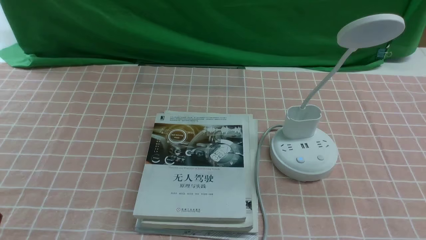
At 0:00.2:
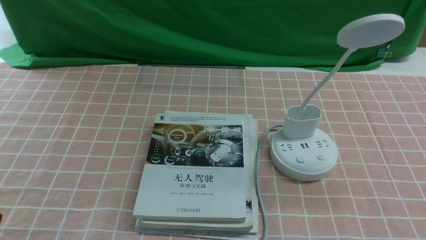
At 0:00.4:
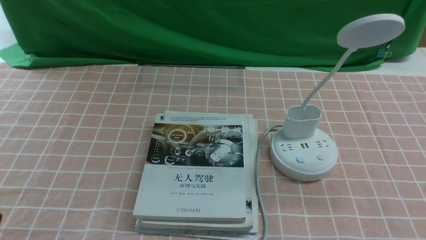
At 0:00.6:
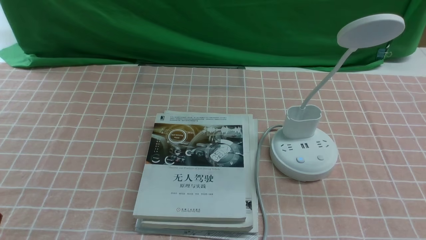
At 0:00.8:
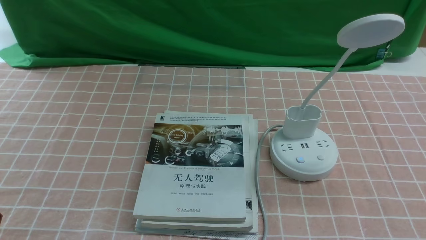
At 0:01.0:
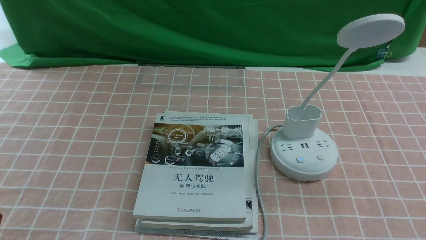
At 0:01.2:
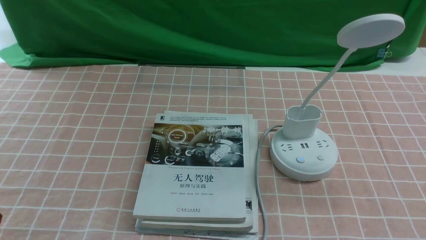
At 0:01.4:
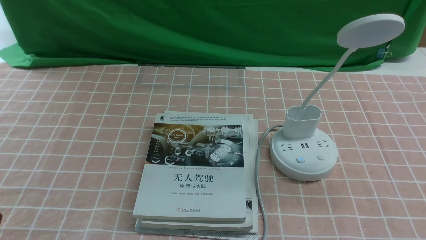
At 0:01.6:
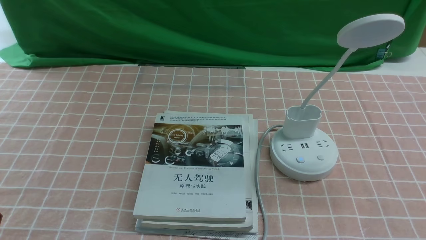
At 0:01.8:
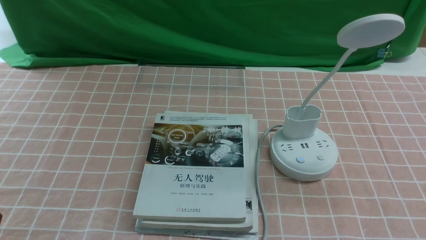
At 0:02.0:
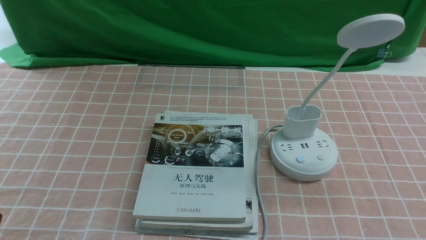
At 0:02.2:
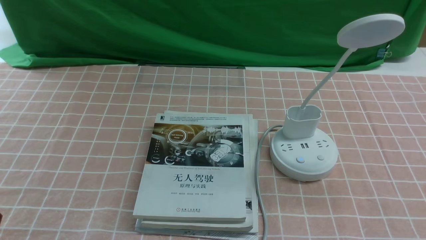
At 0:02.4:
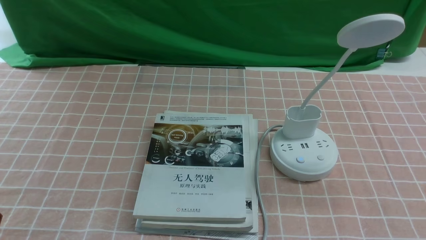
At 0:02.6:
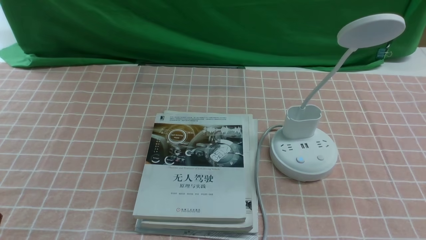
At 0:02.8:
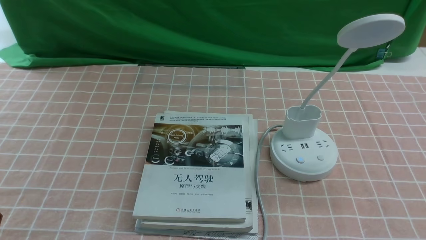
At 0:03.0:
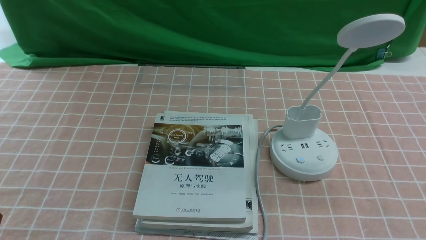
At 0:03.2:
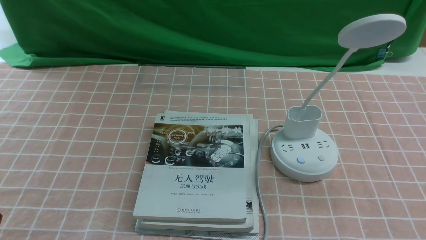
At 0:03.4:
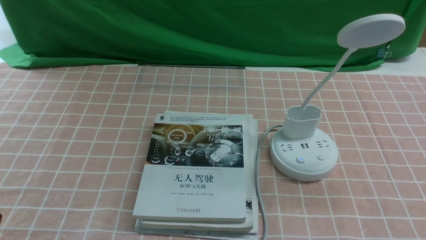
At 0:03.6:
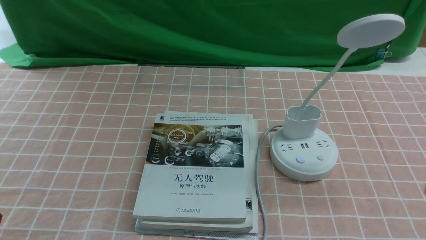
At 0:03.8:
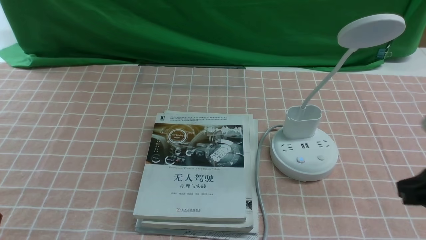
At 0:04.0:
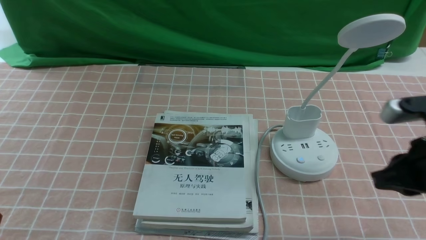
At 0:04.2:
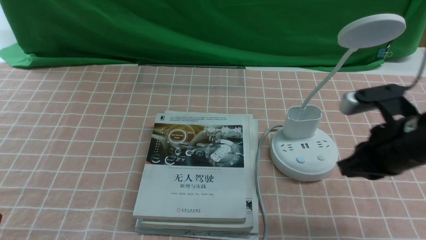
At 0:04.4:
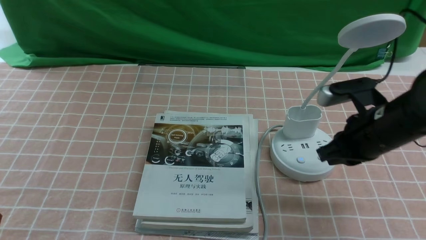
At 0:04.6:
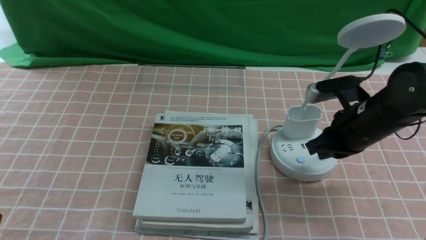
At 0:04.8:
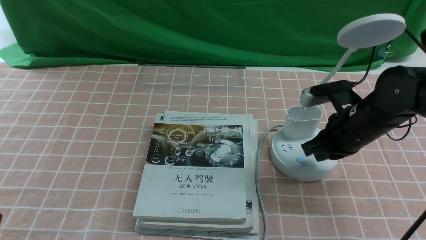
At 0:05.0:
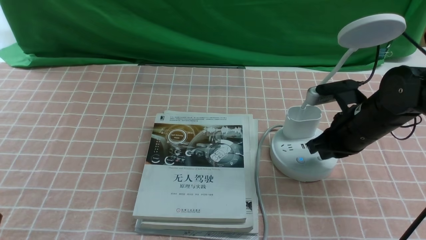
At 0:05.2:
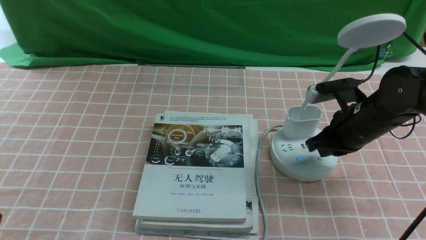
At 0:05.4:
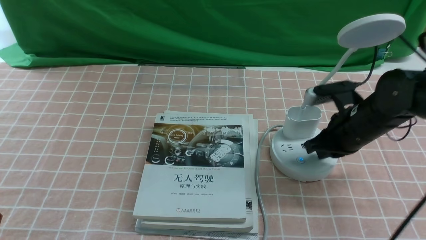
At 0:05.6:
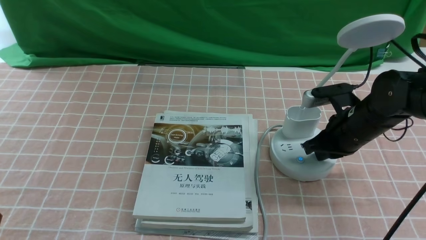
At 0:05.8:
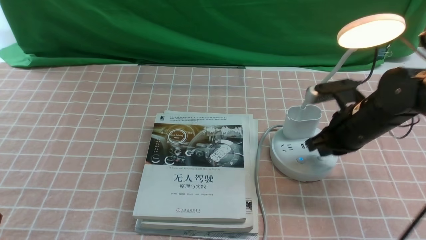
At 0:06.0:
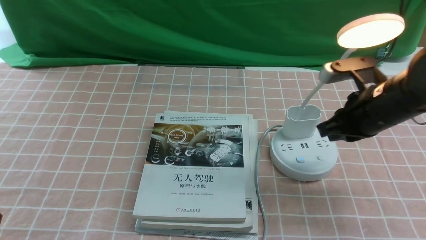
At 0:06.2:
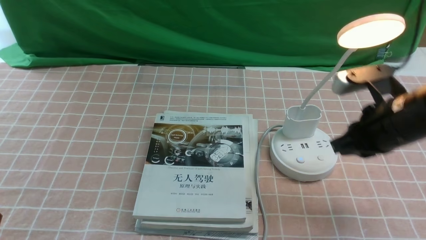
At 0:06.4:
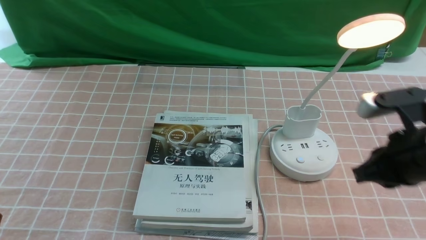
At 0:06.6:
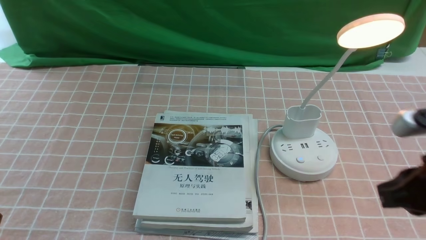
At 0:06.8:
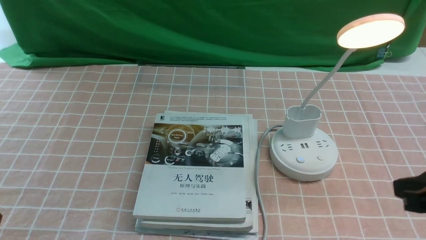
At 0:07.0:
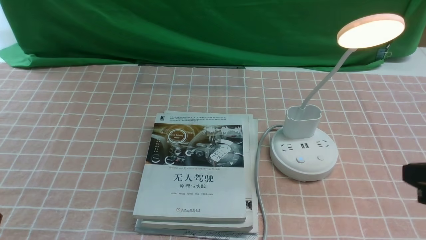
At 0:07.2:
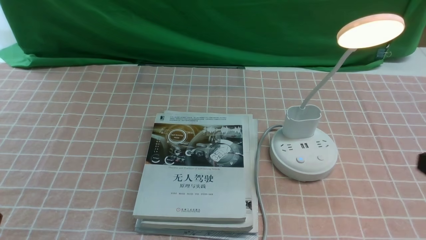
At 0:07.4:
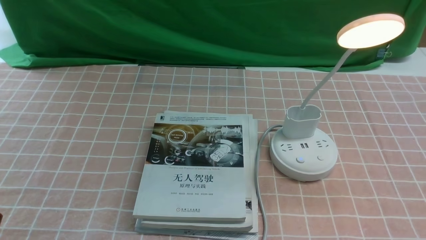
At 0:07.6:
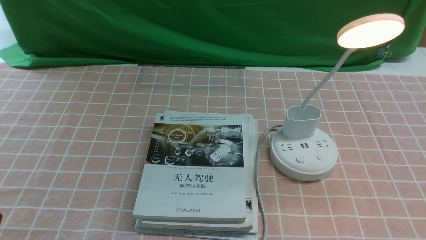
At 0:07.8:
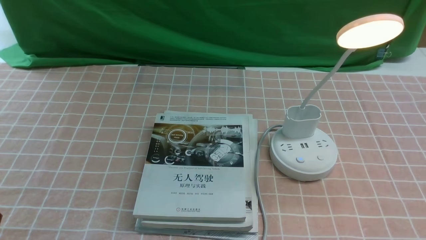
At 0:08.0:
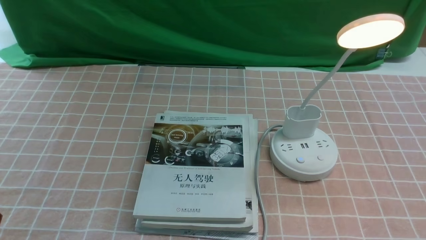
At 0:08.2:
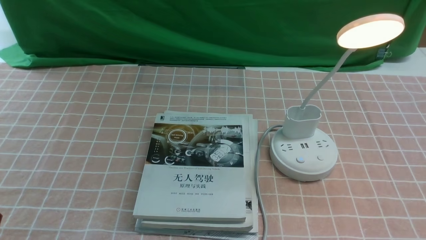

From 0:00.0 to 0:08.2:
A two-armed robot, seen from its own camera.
Step, from 0:00.0 to 0:06.0: use the right arm to press the button switch on the lamp holder.
From 0:00.0 to 0:01.6: Both grippers stay put.
From 0:03.2 to 0:05.0: The right gripper heads forward, covering approximately 30 cm, and closes.
From 0:05.0 to 0:06.6: The right gripper goes about 20 cm backward and upward.
From 0:06.6 to 0:08.2: The right gripper goes approximately 15 cm backward, downward and to the right.
